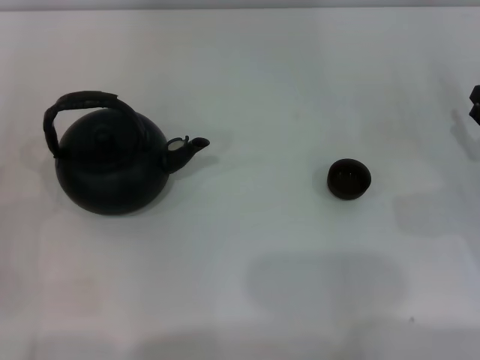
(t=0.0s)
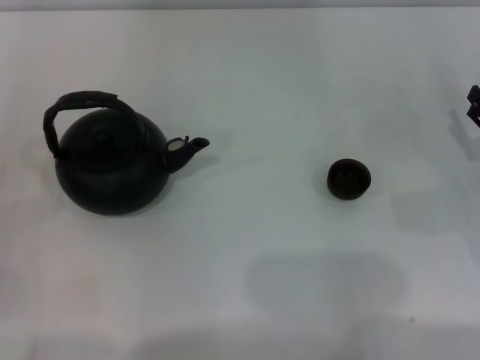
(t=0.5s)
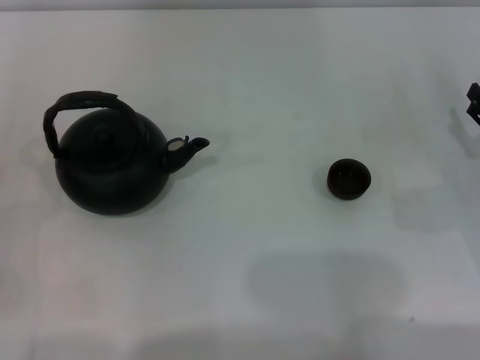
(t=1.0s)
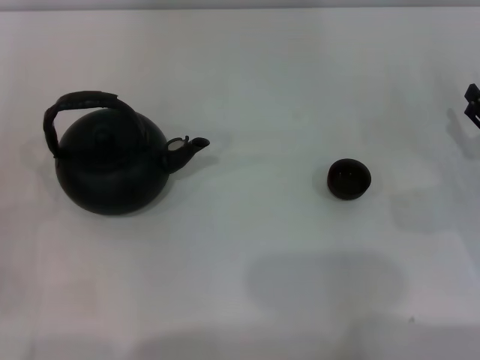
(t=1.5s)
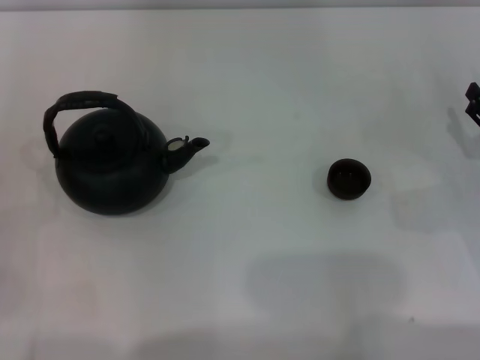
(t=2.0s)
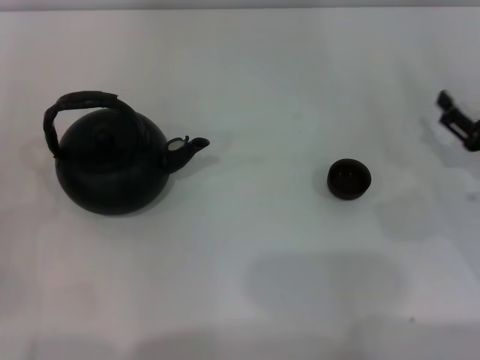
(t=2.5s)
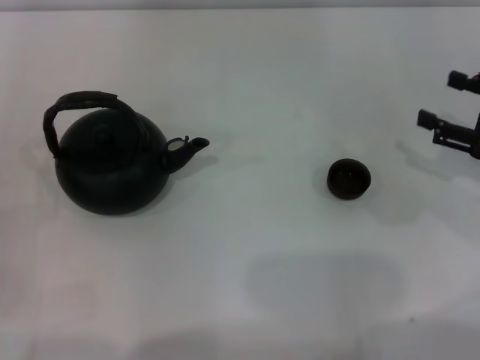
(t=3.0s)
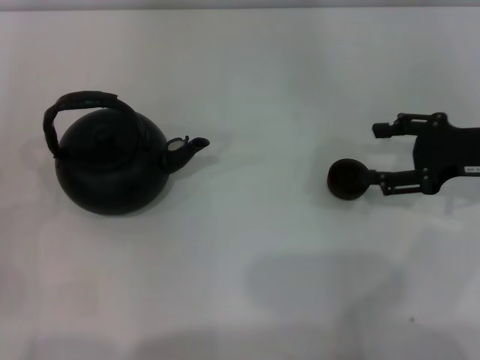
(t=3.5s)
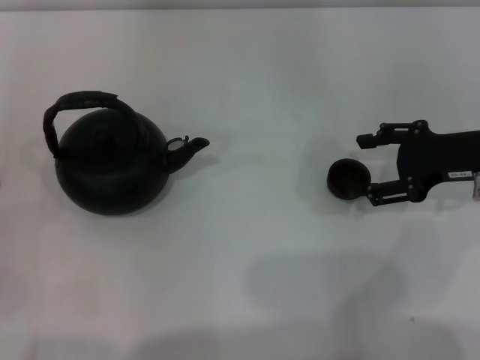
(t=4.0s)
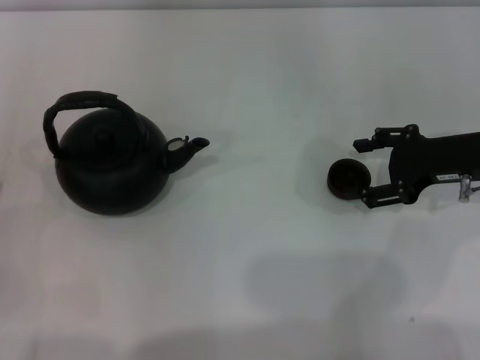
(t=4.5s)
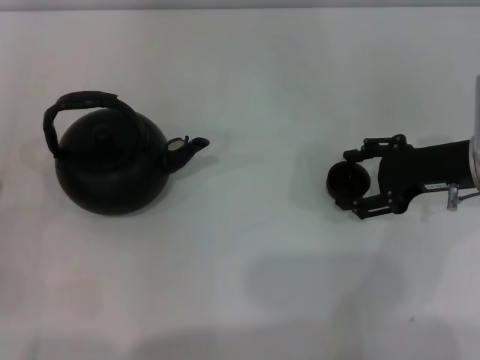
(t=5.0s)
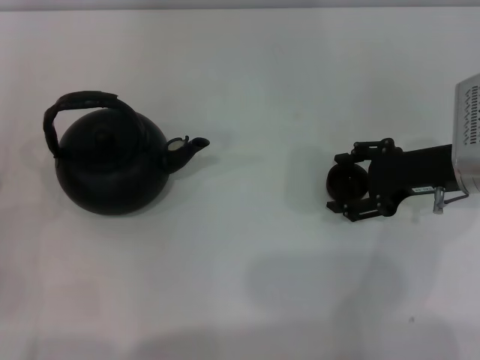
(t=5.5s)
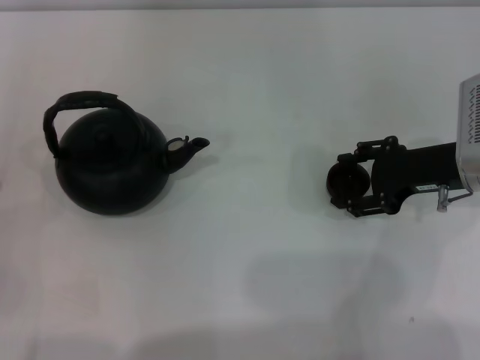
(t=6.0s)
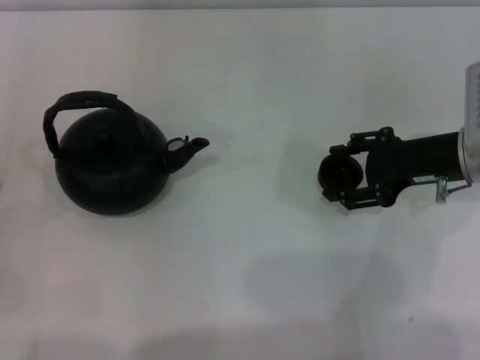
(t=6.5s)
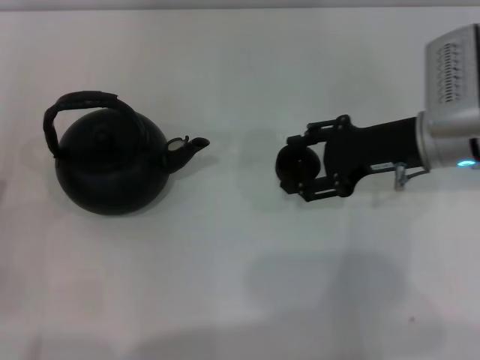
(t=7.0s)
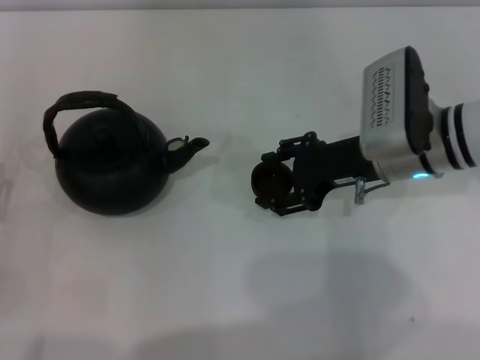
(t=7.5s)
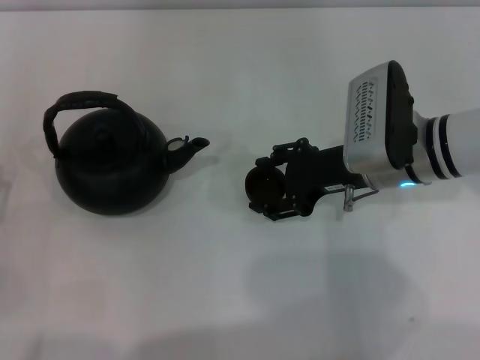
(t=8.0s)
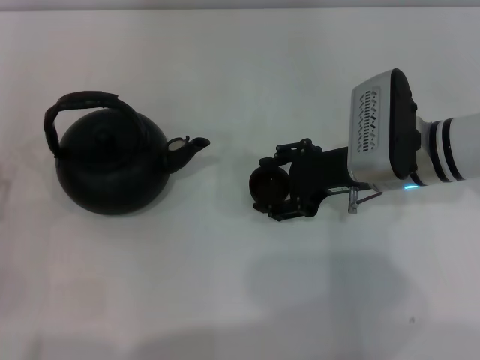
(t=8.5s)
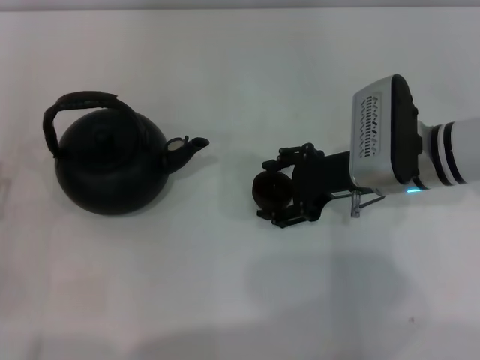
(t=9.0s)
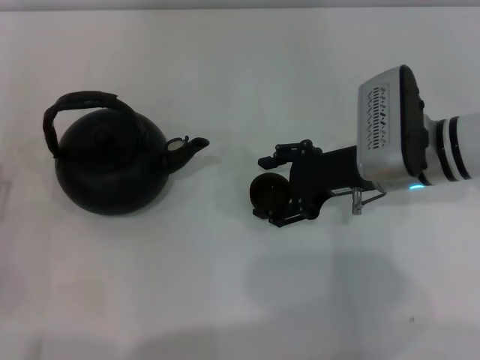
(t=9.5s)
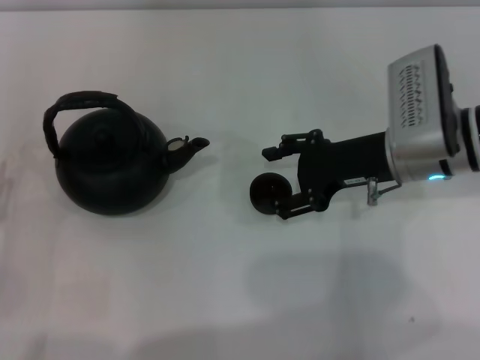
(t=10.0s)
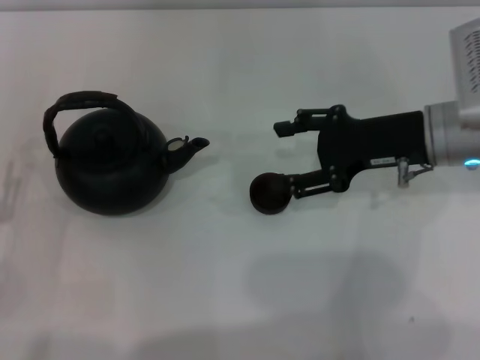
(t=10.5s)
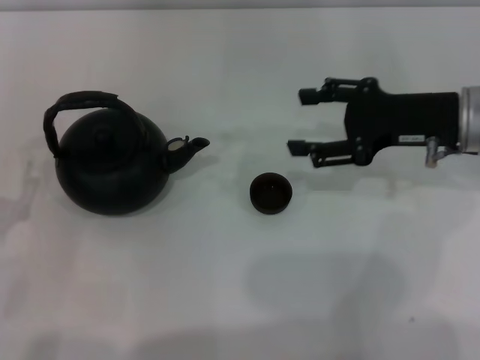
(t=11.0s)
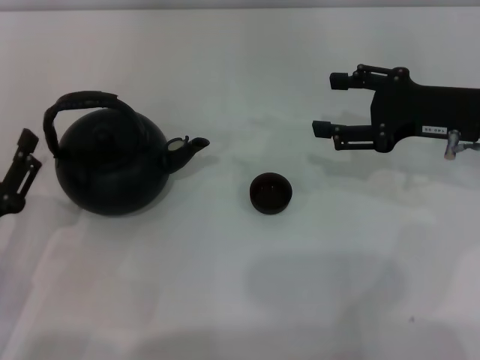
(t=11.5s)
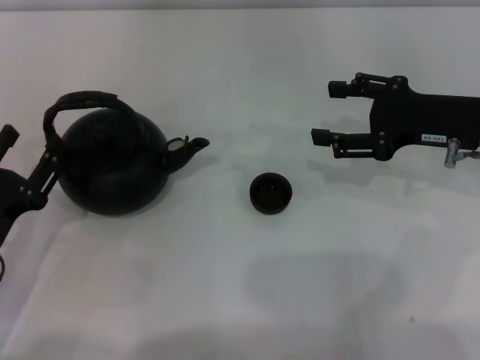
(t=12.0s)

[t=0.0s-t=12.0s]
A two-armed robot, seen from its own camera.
Task of the whole recording: Grasp the handle of the teapot with one hand and pour tea into the teacup.
Step, t=0.0s to t=6.5s: Pick up the teacup with the right gripper.
Step, t=7.0s to t=10.0s: Place the teacup in the center of view with the right gripper.
t=0.0s to t=2.0s: Both grippers stay about where they are.
t=2.0s to t=4.0s: The right gripper moves upward and forward, about 10 cm.
t=4.0s to t=6.0s: The grippers move only a little.
t=6.0s to t=8.0s: The right gripper goes approximately 10 cm to the left.
t=8.0s to t=10.0s: The grippers stay close to where they were, moving slightly.
t=10.0s to t=12.0s: The right gripper shifts some 5 cm to the right.

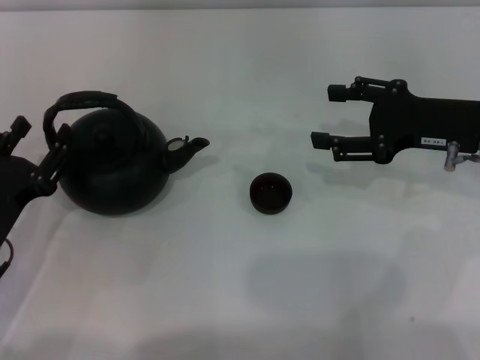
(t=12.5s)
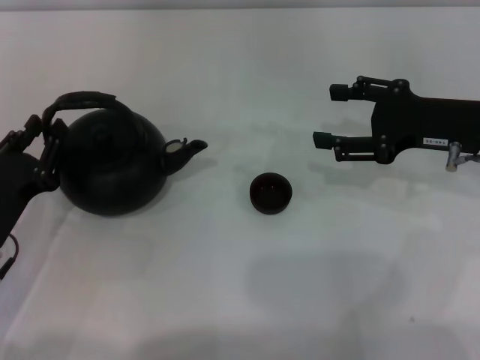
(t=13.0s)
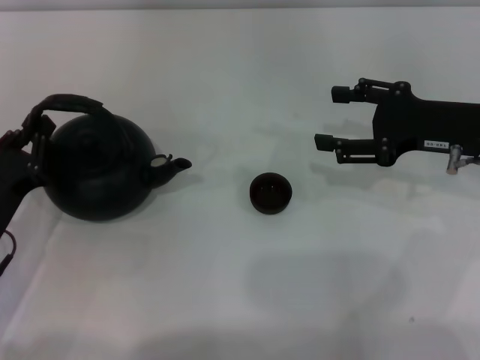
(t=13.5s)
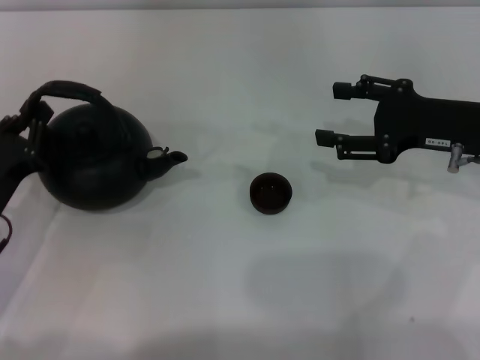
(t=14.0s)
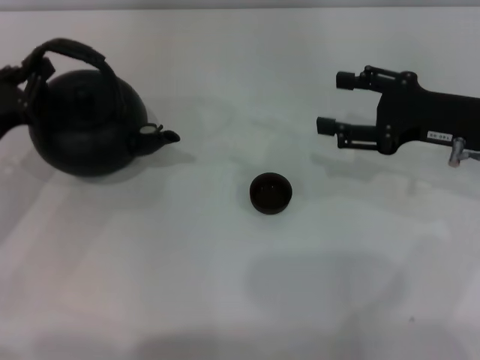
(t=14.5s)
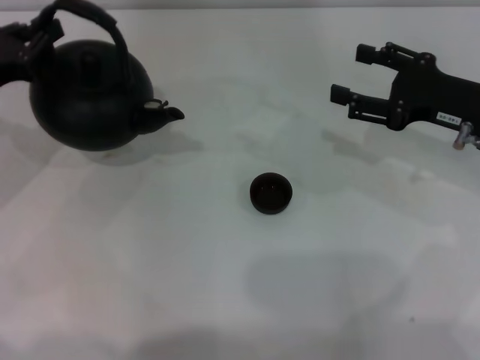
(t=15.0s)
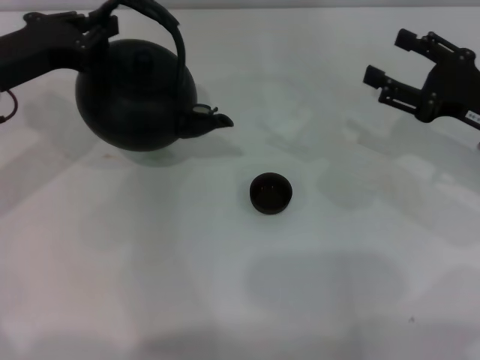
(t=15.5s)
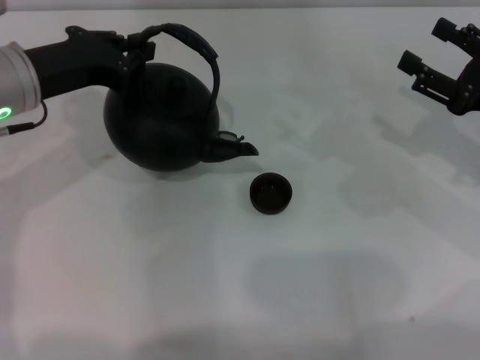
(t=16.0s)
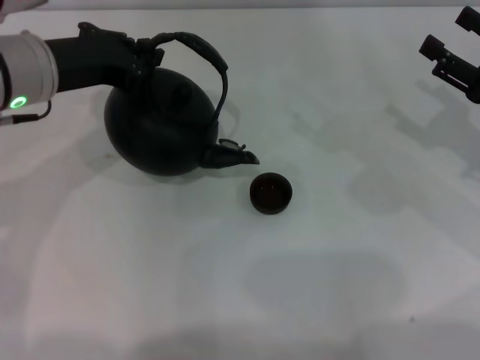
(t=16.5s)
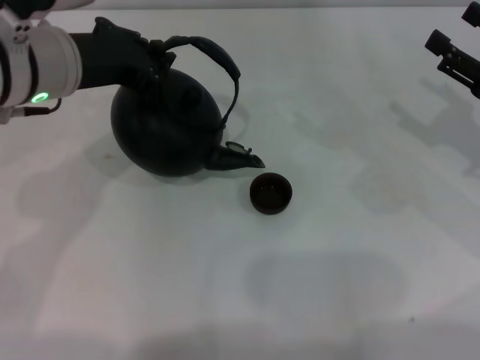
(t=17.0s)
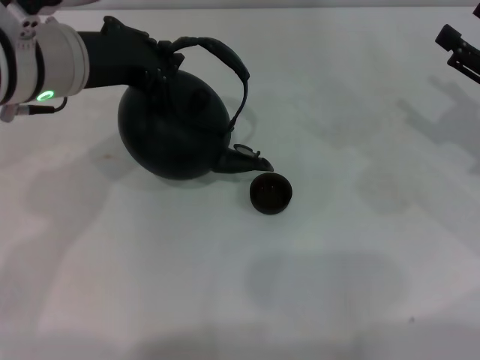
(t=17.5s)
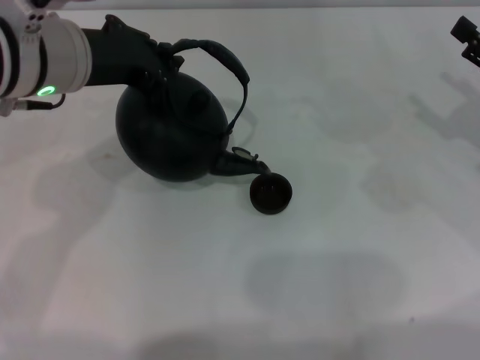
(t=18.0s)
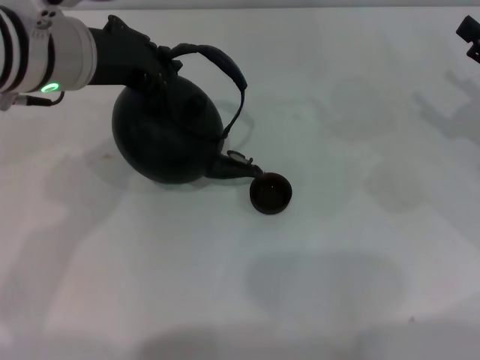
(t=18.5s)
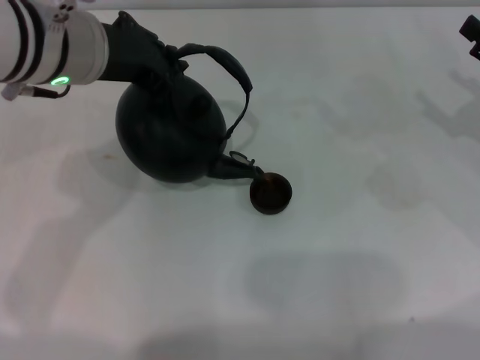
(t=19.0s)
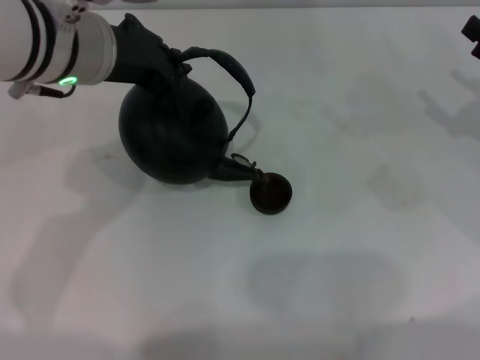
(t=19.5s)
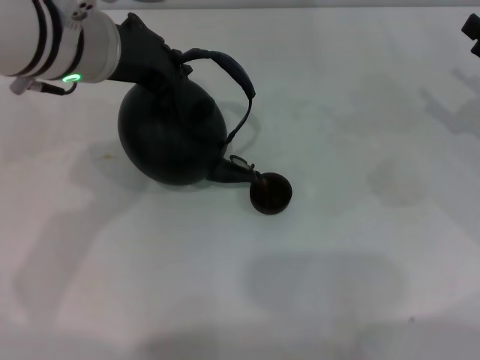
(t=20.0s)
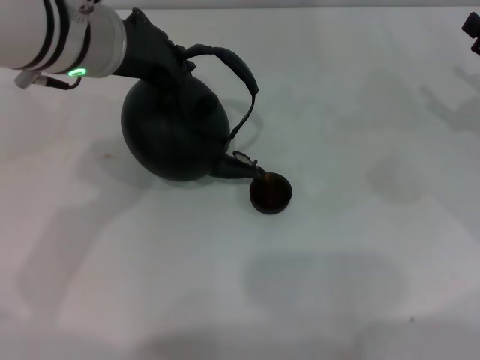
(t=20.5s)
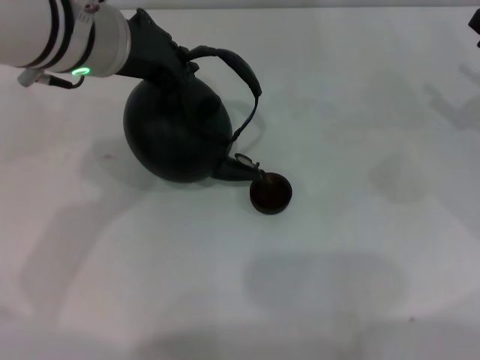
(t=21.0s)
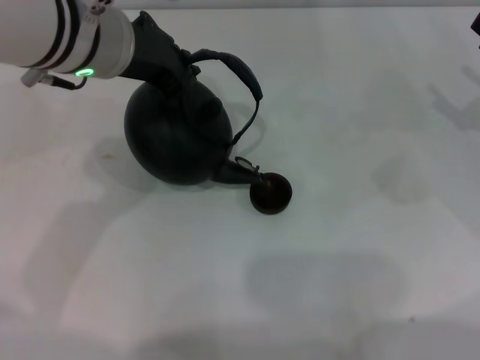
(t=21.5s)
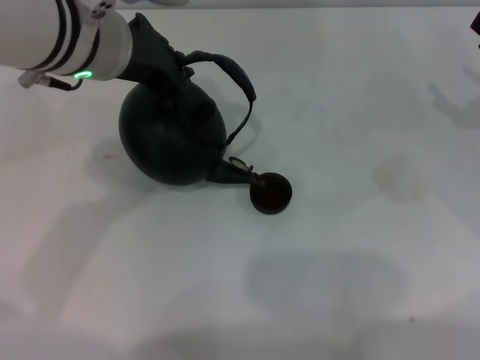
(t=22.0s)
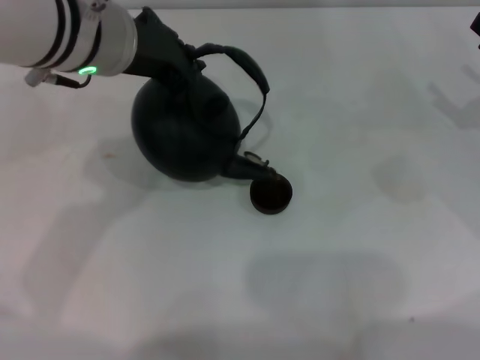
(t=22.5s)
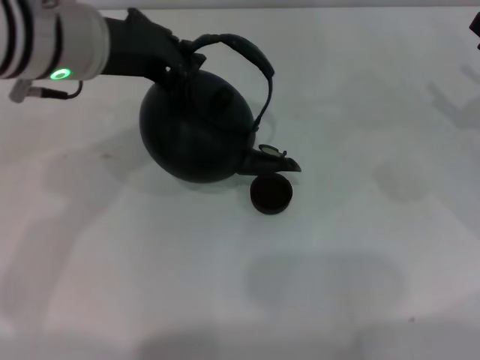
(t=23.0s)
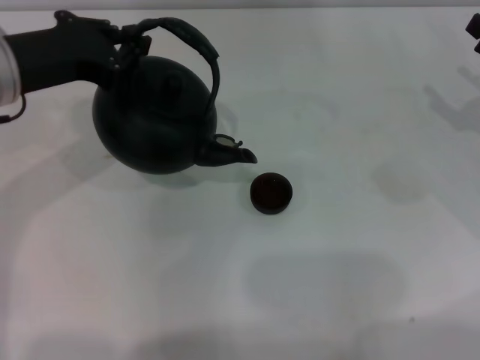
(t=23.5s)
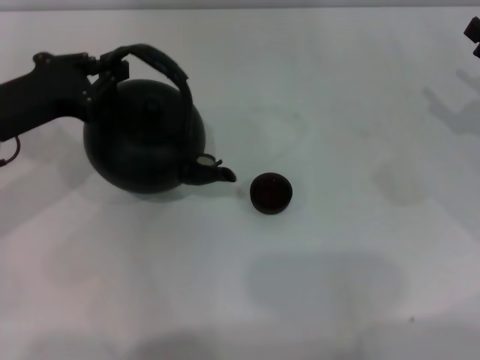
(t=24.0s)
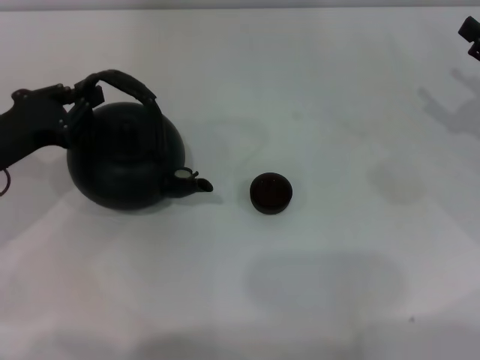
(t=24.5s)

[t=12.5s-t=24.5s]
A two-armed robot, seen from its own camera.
Task of the whole recording: Grasp the handle of the teapot with one hand and pour tea into the teacup.
Step, t=12.5s to t=14.5s: Pick up the teapot with the left gripper.
Step, t=15.0s to t=23.0s: Pour tea into the teacup with the left gripper.
t=12.5s to t=14.5s: The left gripper shifts roughly 10 cm forward, and closes.
t=14.5s to t=16.5s: The left gripper moves upward, to the right and forward, about 15 cm, while the right gripper goes approximately 5 cm to the right.
t=16.5s to t=18.5s: The left gripper changes place by roughly 5 cm.
t=18.5s to t=20.5s: The grippers make only small movements.
t=20.5s to t=22.5s: The two grippers keep their place.
t=22.5s to t=24.5s: The left gripper is displaced to the left and downward by roughly 20 cm.

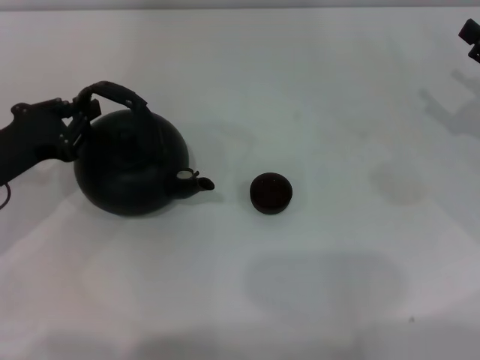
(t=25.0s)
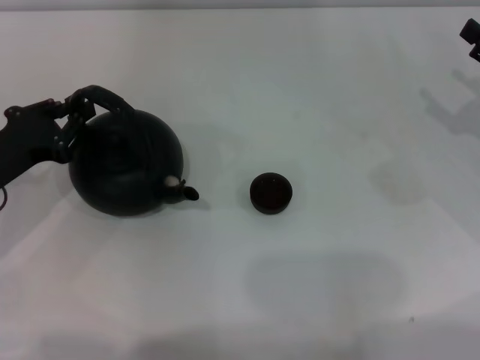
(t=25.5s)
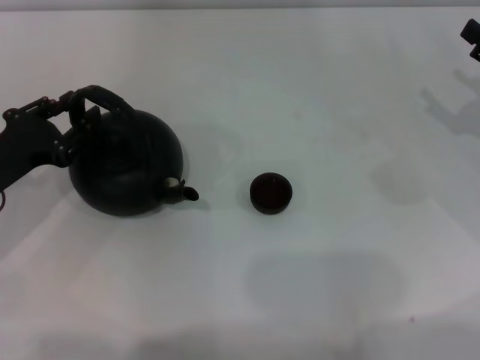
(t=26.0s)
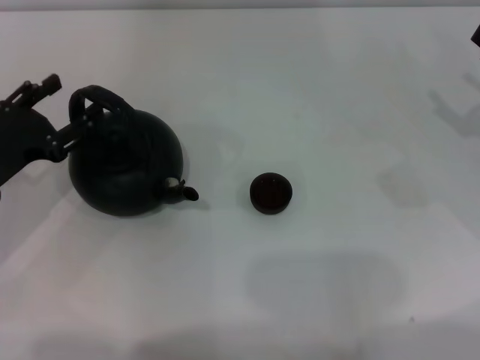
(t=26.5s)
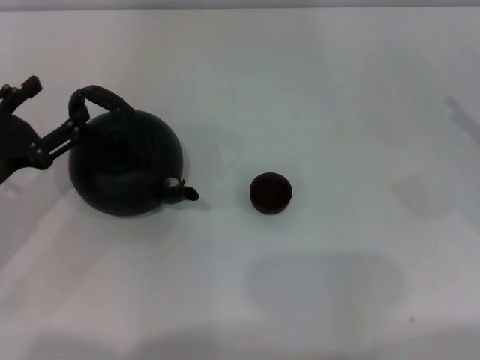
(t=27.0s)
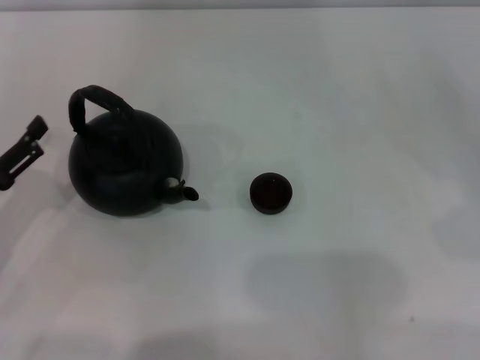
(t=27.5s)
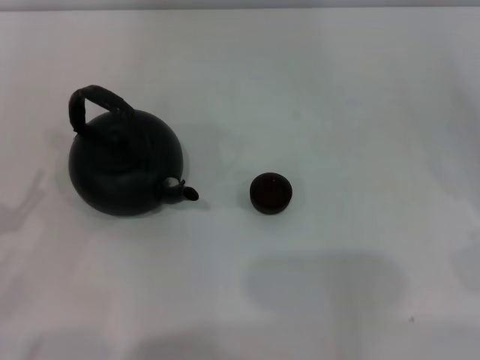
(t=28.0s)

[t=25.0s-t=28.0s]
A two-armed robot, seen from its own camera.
Task of the whole recording: Grasp the handle of the teapot with one hand and pour tea into the teacup.
Step, t=25.0s to t=27.0s: Put down the teapot with the left gripper.
t=25.0s to t=26.5s: The left gripper opens up.
t=26.5s to t=28.0s: The left gripper is displaced backward and to the left by some 10 cm.
